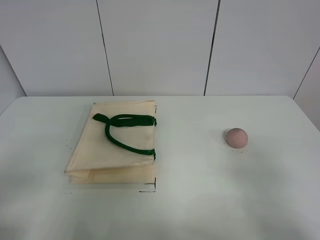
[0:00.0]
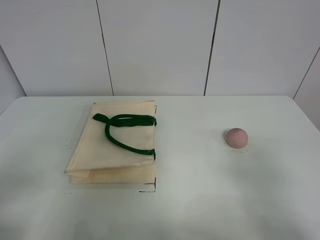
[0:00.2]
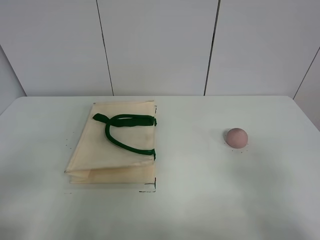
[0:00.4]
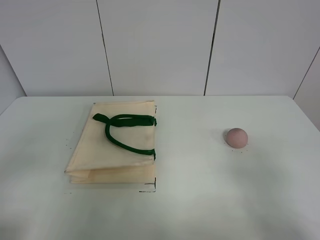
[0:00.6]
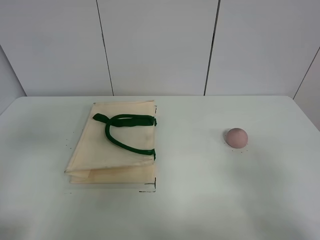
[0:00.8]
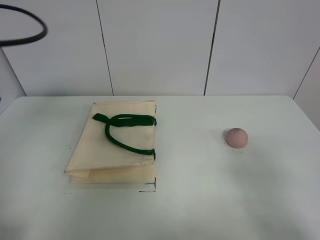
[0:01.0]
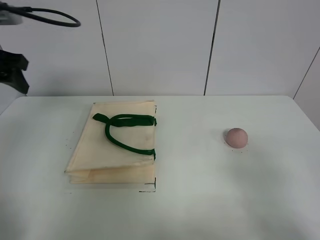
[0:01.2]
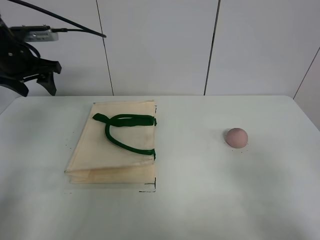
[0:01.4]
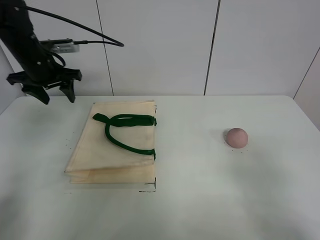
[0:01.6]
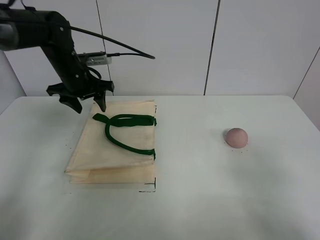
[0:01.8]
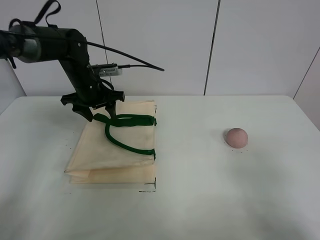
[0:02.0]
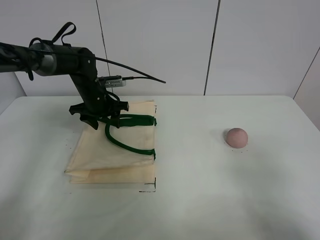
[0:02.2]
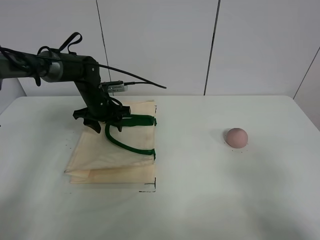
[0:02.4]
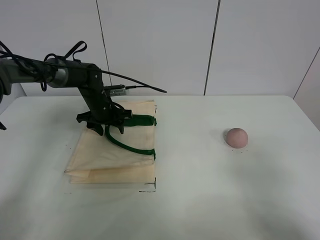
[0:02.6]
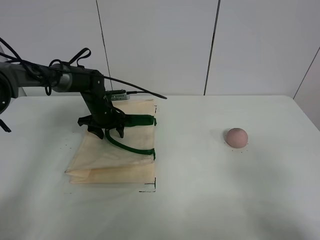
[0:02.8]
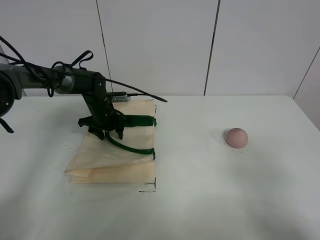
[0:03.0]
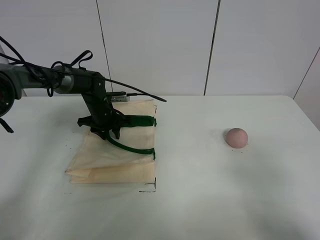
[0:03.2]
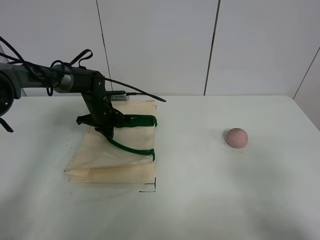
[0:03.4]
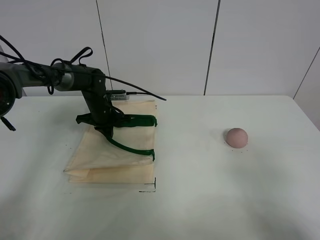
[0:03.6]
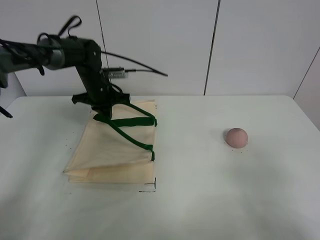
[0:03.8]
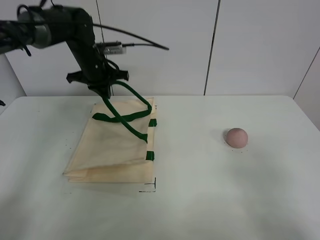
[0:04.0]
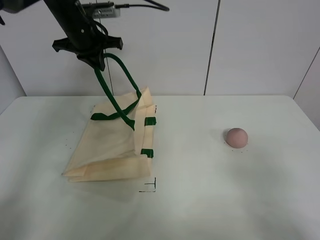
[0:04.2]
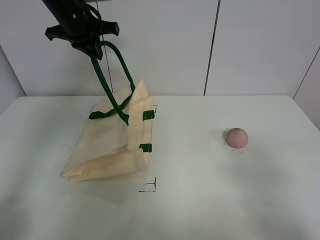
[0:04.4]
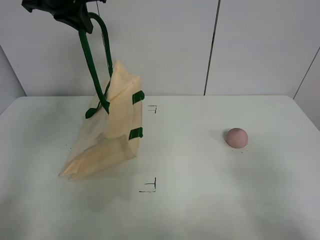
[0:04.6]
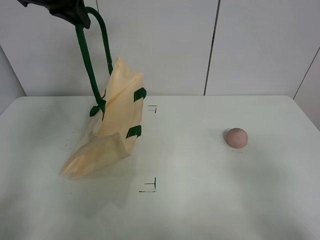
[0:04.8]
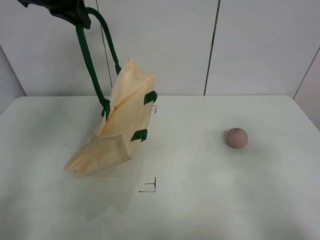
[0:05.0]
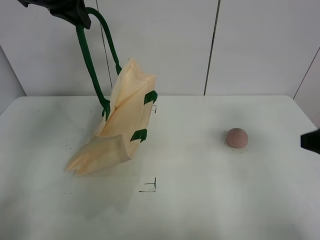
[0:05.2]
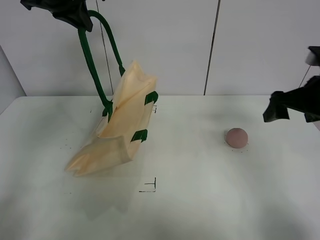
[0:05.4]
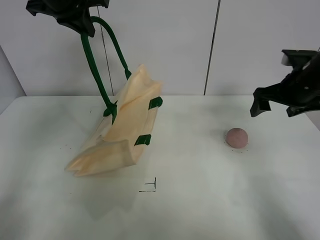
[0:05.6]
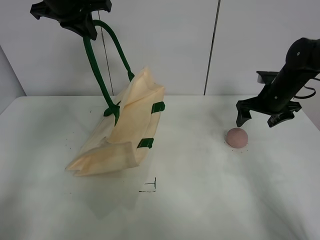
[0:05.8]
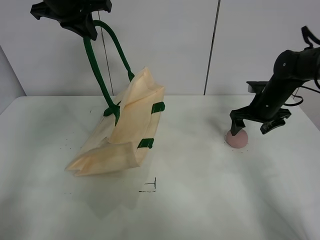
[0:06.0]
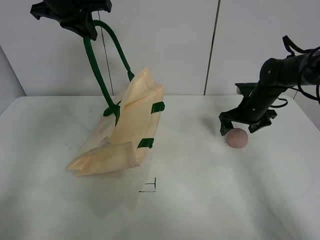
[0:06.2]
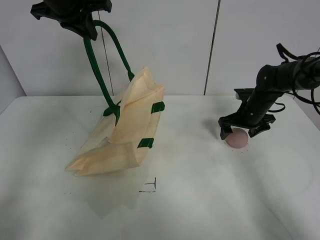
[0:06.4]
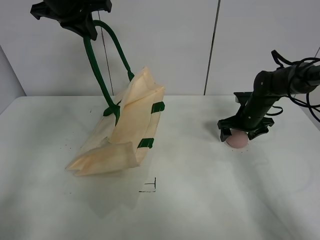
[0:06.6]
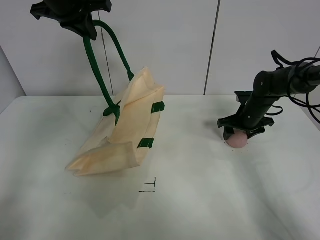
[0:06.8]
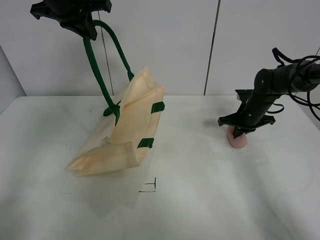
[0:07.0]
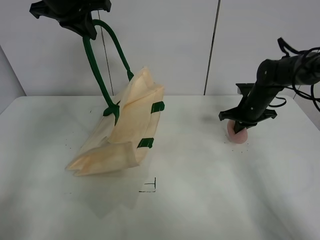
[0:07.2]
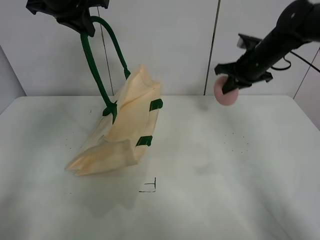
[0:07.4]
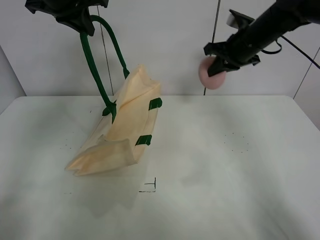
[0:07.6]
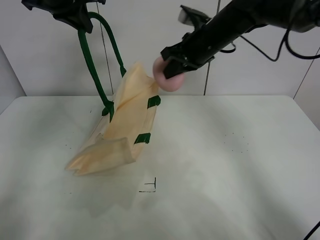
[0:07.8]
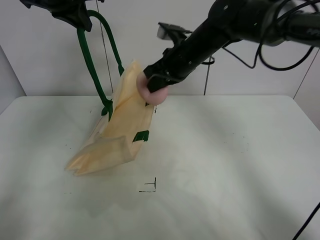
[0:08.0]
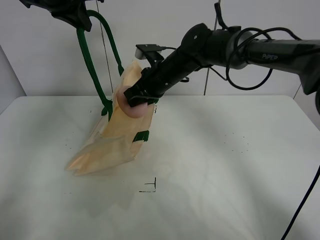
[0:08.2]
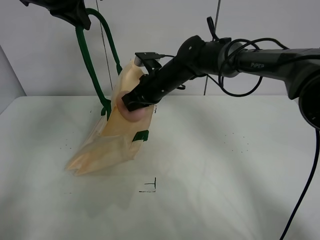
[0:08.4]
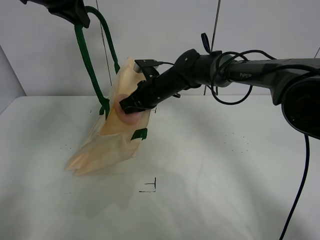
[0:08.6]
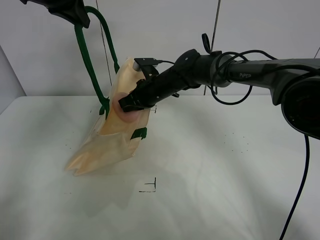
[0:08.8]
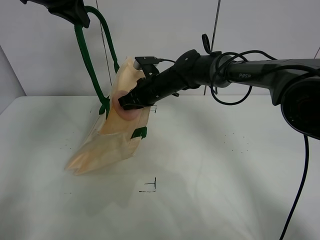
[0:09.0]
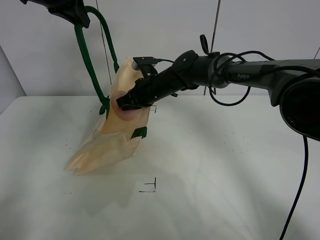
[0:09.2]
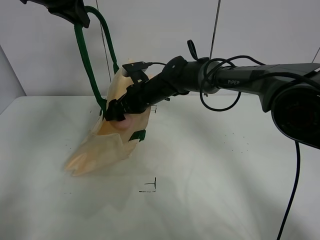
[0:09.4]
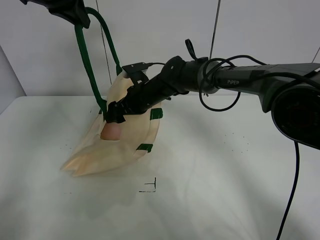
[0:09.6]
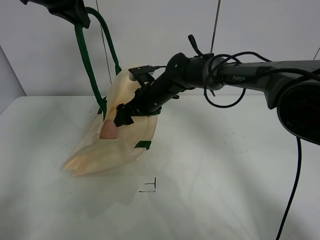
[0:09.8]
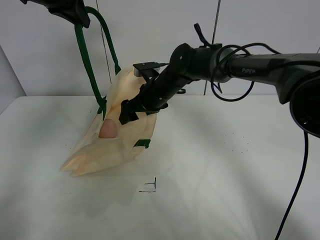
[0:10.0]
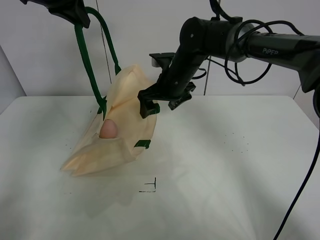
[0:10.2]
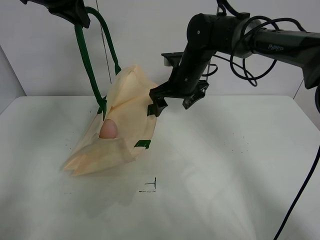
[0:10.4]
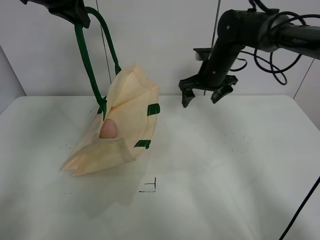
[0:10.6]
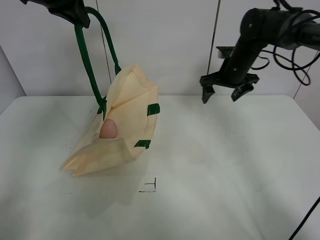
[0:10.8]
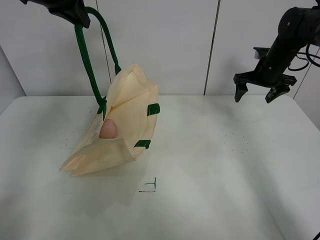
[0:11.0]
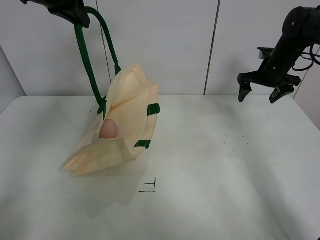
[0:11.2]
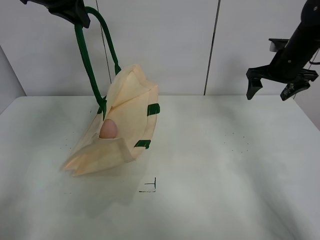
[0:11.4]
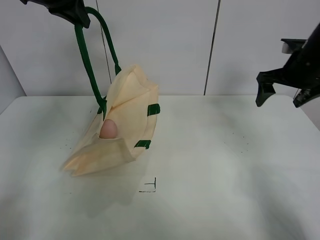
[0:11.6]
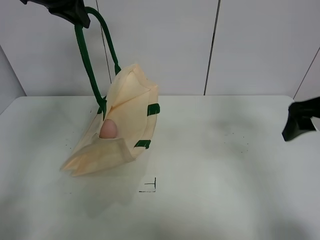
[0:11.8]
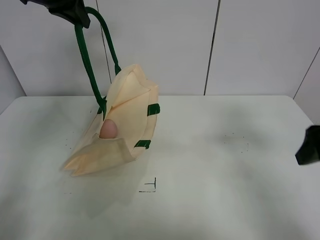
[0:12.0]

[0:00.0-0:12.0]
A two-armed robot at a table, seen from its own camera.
Task of the whole recording: open the white linen bag and put the peach in the bag.
Step, 0:00.0 to 0:04.4: Lift the handbag with left gripper.
Step, 0:04.6 to 0:07.0: Grasp the peach with right gripper.
Step, 0:07.2 to 0:09.6: Place the peach in the handbag with right gripper.
0:00.0 to 0:01.6: The left gripper heads forward, covering roughly 40 cm.
0:01.6 to 0:03.0: The left gripper is displaced downward and to the right by approximately 20 cm.
0:03.0 to 0:04.4: The left gripper goes about 30 cm upward, and closes its fingers.
0:04.4 to 0:06.0: The right gripper travels forward by roughly 40 cm.
0:06.0 to 0:07.6: The right gripper moves upward and to the left, roughly 20 cm, and closes up.
0:07.6 to 0:09.0: The right gripper shifts some 20 cm to the left and downward.
0:09.0 to 0:10.4: The right gripper shifts approximately 5 cm to the right, and opens its fingers.
0:10.4 to 0:12.0: The right gripper shifts about 35 cm backward and to the right.

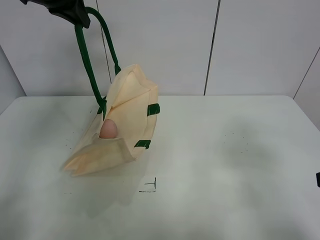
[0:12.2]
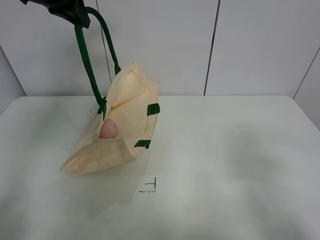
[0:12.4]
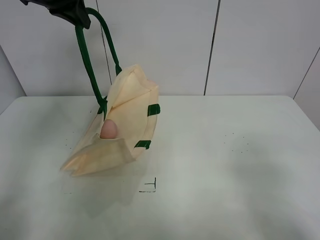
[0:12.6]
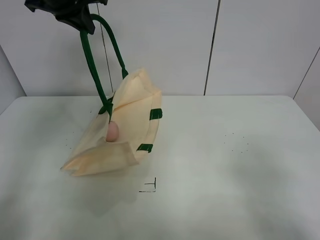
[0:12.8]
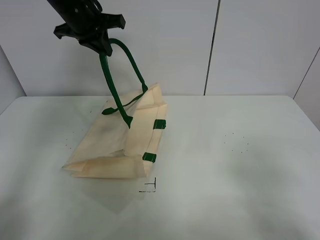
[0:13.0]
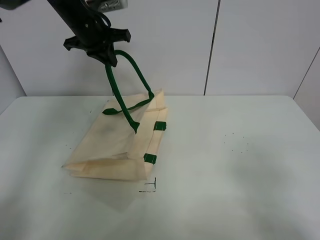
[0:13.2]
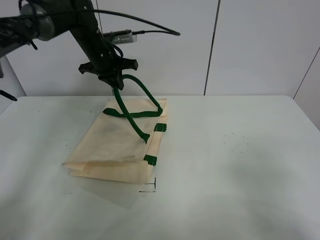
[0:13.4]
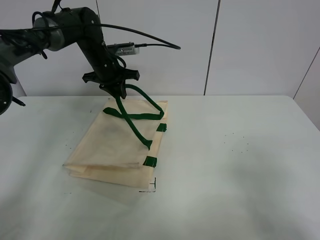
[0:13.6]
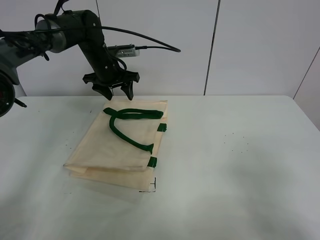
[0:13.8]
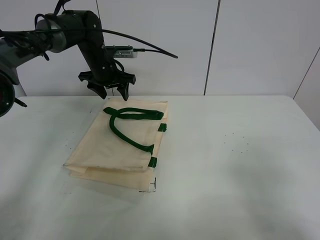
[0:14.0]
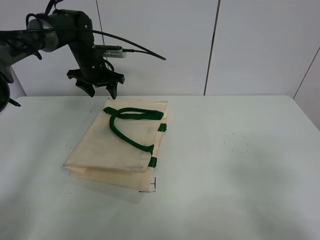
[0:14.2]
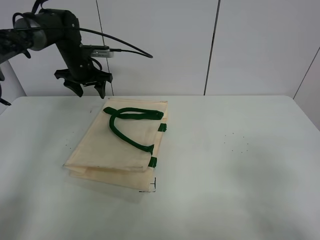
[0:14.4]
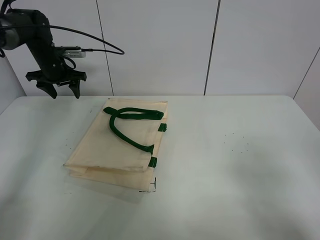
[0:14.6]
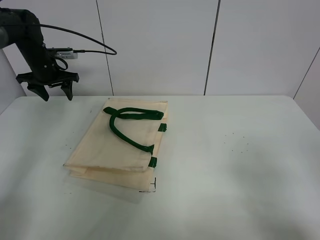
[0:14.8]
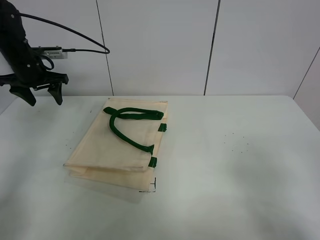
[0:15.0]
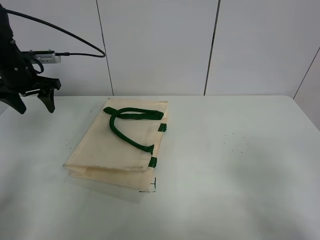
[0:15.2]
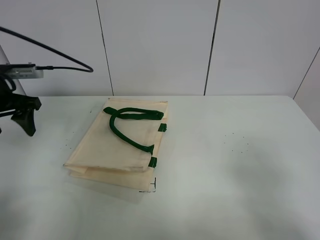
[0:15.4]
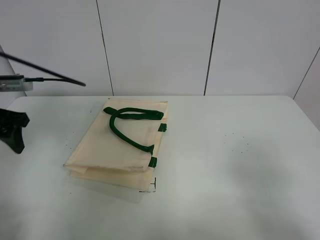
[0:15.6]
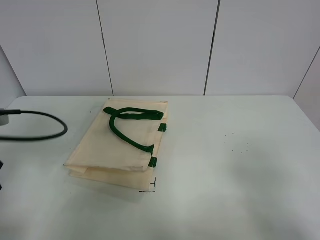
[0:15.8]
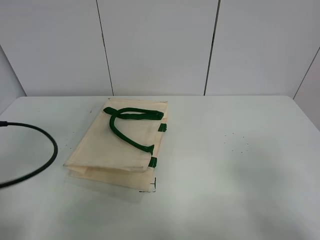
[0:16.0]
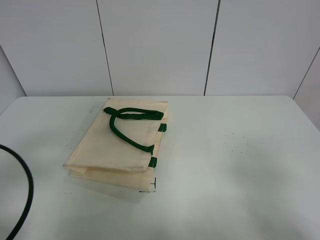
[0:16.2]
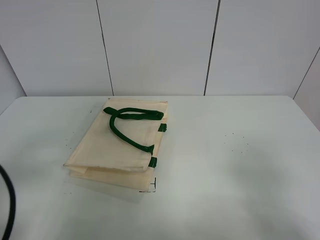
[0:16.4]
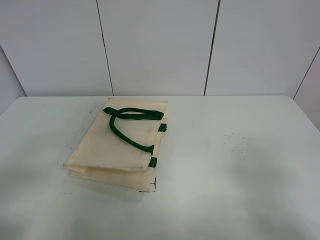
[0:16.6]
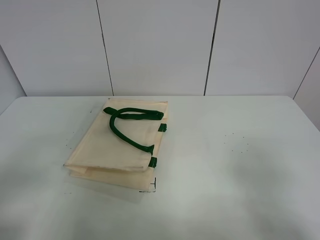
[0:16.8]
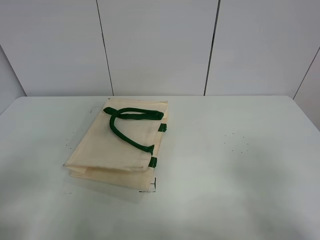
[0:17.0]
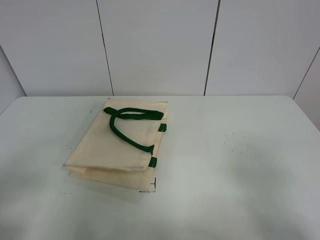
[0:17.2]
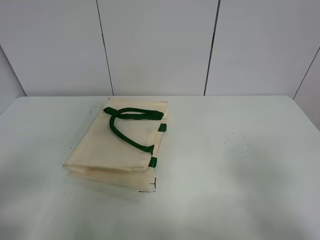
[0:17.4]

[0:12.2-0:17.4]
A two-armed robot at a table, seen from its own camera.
Task of the whole recording: open the white linen bag and put the peach in the bag.
0:12.2 to 0:14.0: The right gripper heads backward, covering roughly 5 cm. Meanwhile the left gripper shifts about 25 cm downward and forward, and opens its fingers.
0:14.0 to 0:15.6: The left gripper is displaced backward and to the left by about 30 cm.
0:15.6 to 0:17.4: The left gripper heads backward, covering roughly 25 cm.
